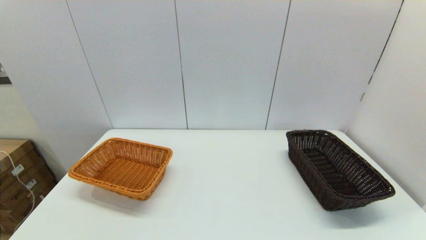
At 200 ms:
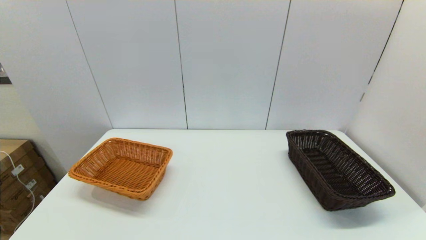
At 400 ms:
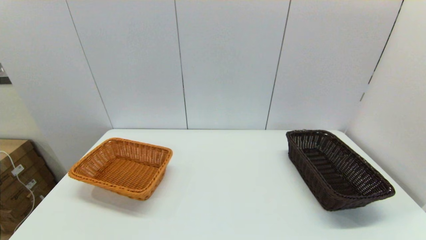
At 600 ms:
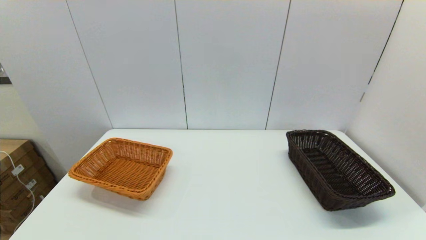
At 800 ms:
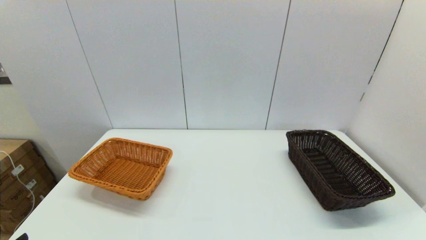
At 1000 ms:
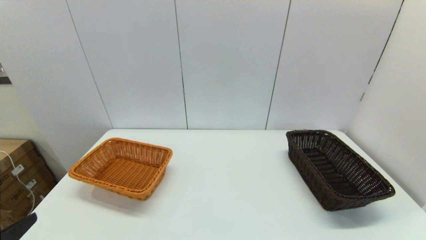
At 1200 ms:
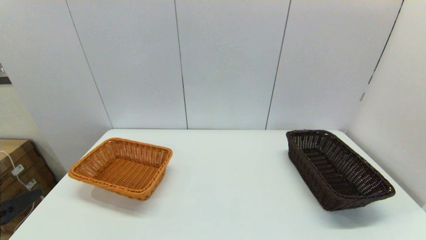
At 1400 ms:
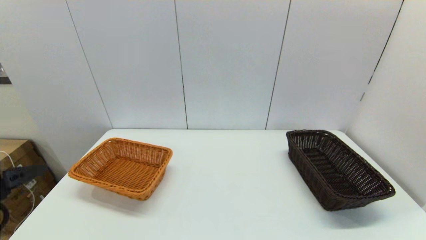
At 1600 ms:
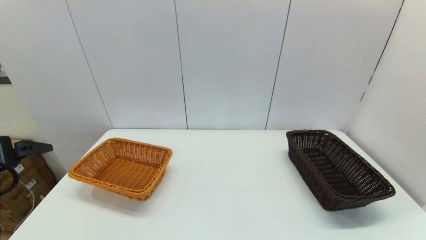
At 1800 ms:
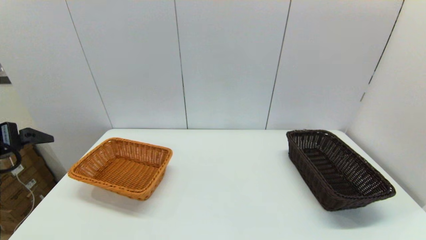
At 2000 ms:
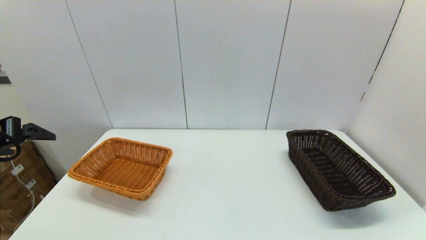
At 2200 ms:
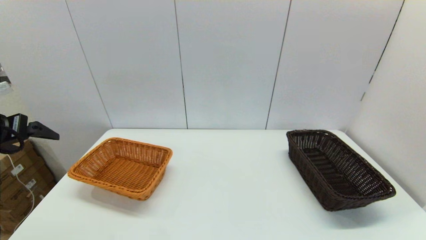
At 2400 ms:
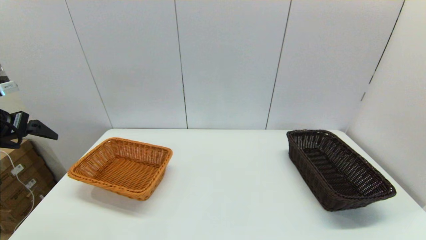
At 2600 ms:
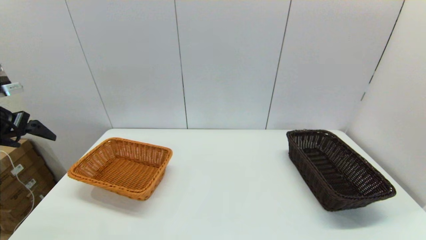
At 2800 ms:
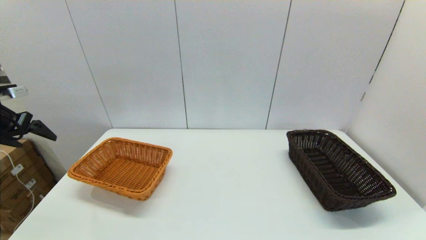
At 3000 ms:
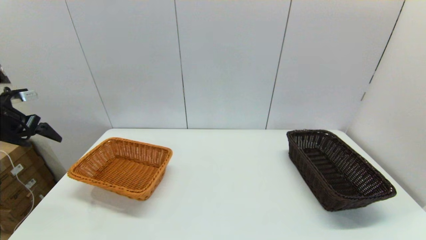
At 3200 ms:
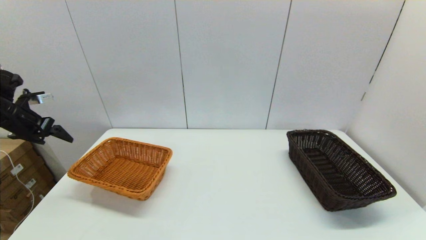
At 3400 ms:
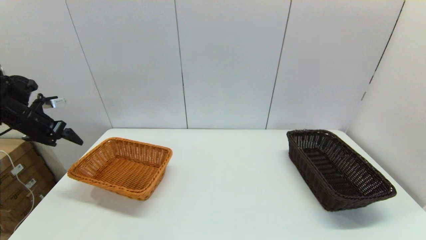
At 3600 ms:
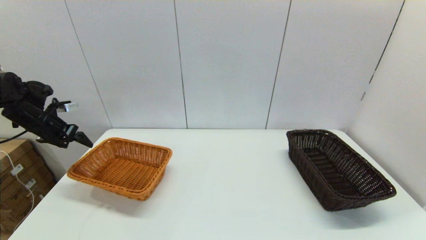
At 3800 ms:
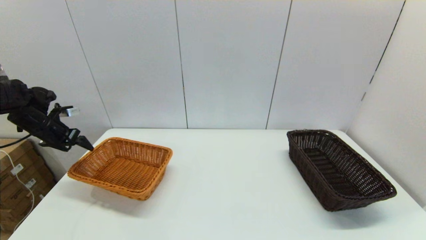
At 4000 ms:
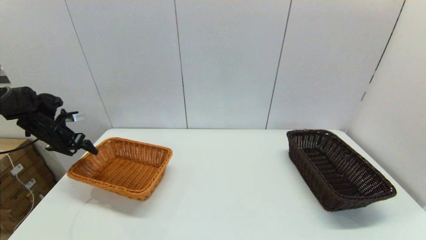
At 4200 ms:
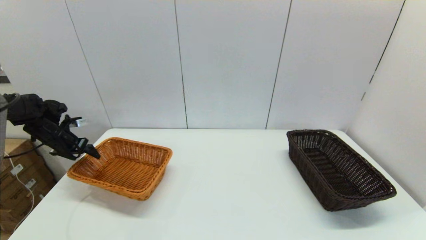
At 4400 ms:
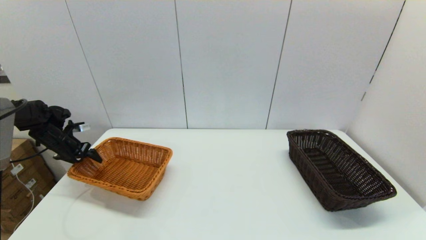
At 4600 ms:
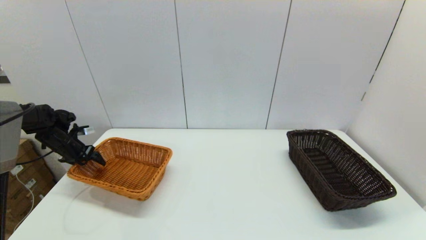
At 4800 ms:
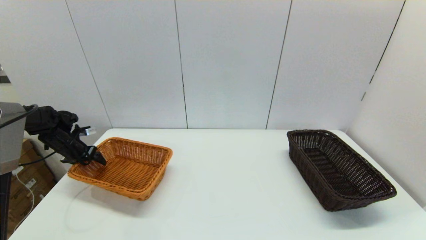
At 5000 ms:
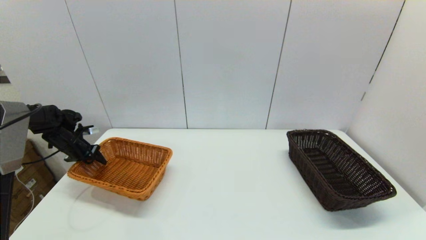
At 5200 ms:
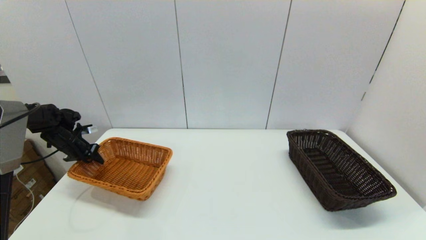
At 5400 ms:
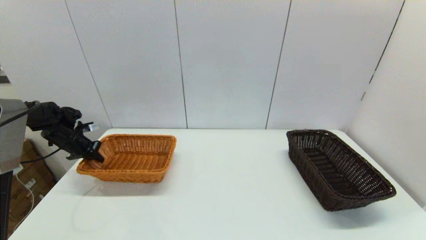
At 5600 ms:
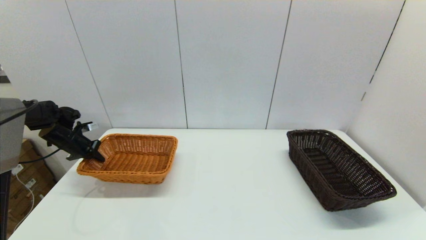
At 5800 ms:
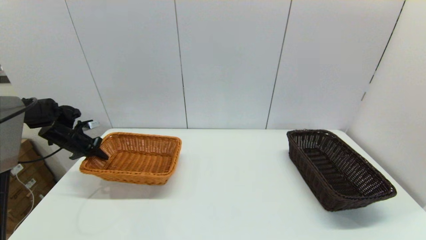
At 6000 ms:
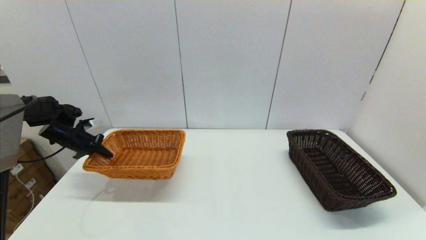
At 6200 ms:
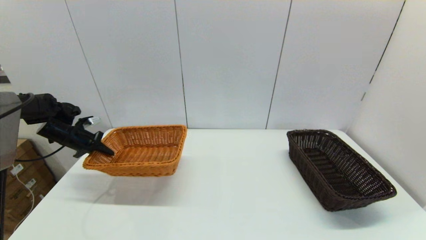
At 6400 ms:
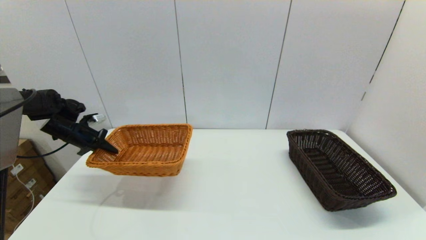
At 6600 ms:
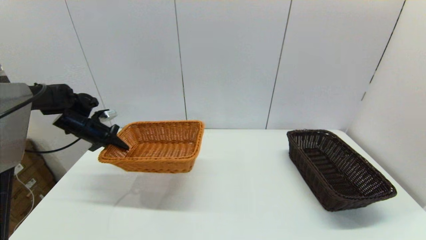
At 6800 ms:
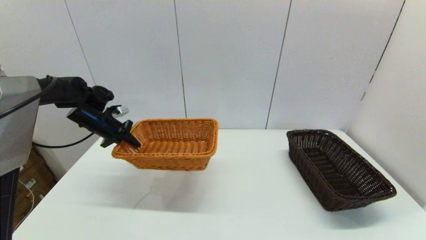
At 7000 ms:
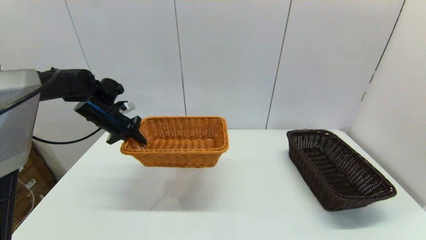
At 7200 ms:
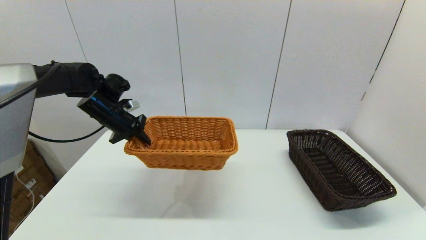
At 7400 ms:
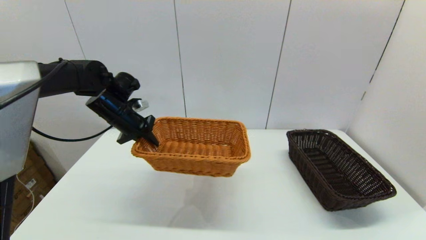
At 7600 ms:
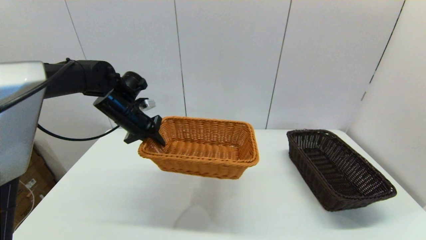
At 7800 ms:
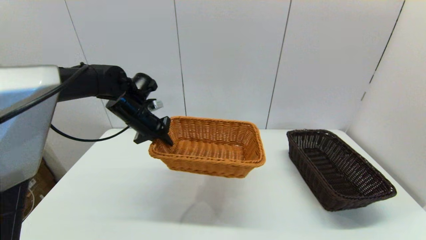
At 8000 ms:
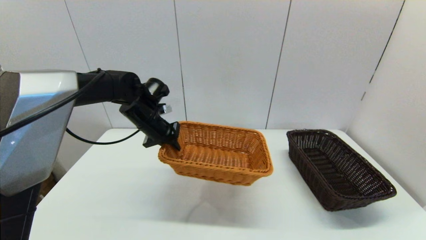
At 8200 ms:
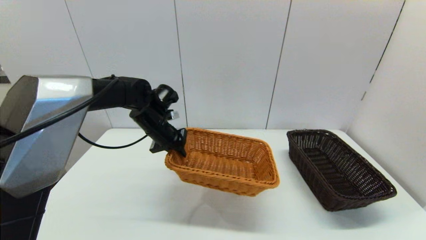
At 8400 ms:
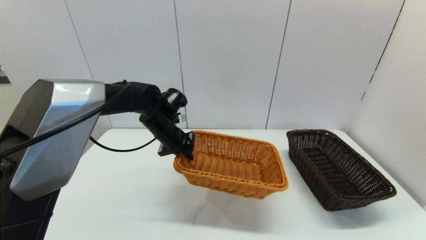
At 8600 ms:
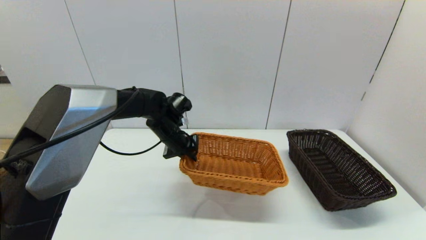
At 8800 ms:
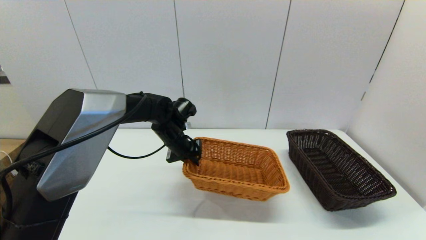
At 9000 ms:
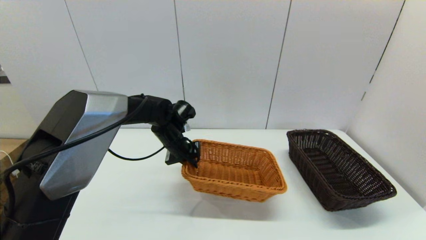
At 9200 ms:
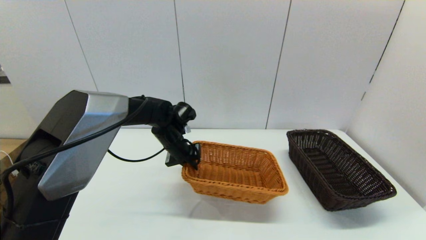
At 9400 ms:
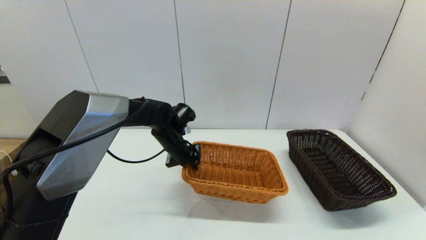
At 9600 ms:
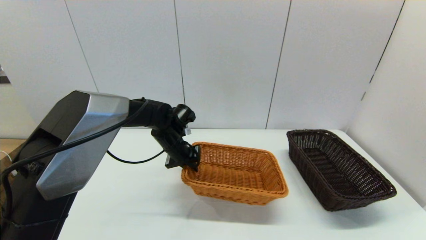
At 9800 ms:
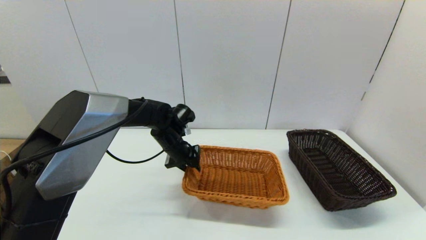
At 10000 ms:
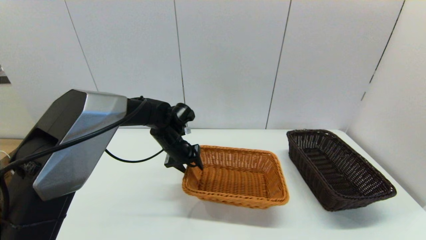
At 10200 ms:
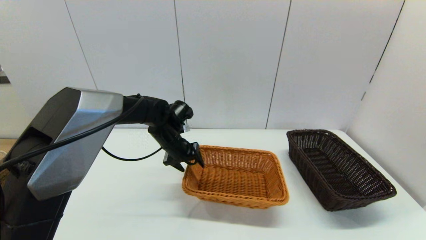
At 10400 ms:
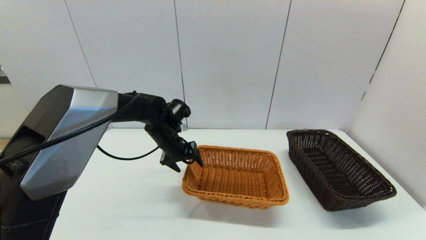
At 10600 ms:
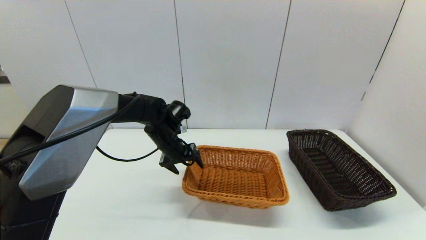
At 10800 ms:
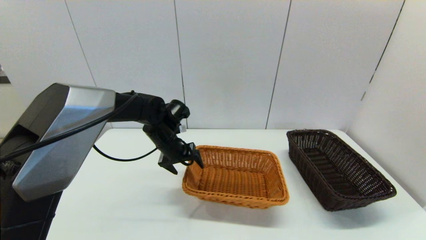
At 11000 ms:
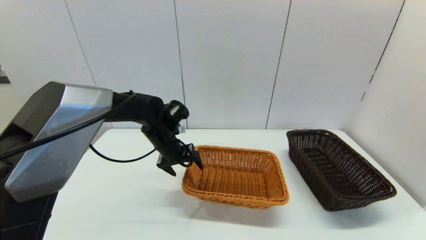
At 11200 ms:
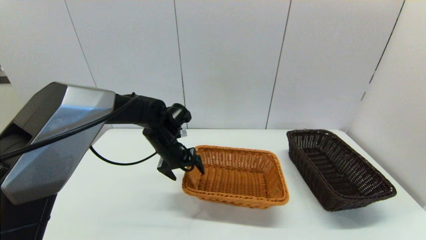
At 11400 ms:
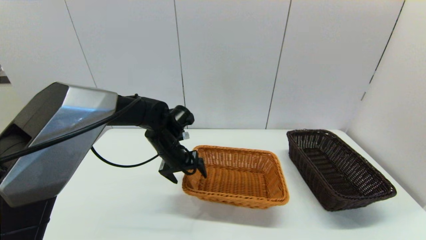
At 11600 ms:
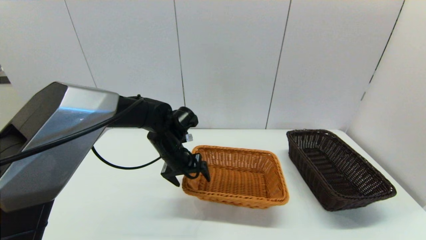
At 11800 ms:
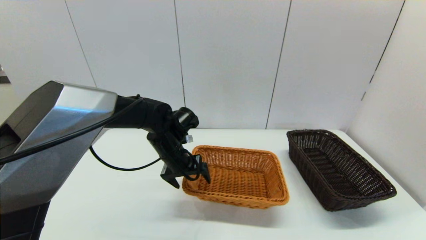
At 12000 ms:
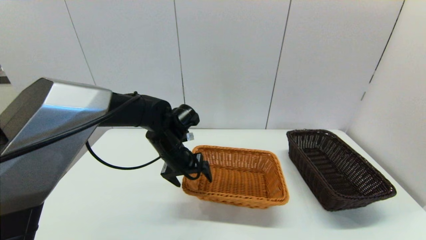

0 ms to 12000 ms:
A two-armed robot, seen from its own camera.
Task of the whole recording: stack a basket on top of another basket.
Step, 0 ms to 5400 ms: Grasp the light basket with the left gripper.
Step, 5600 ms to 11800 ms: Place the light basket on the middle of the table with the left gripper.
0 ms to 1600 ms: The left gripper heads forward and upward, covering roughly 25 cm.
1600 ms to 3000 ms: The left gripper travels forward and to the left by roughly 20 cm.
3000 ms to 4400 ms: The left gripper goes approximately 20 cm downward and forward.
4400 ms to 6000 ms: The left gripper closes.
6000 ms to 7600 ms: The left gripper is displaced to the right and upward by about 25 cm.
7600 ms to 9000 ms: The left gripper is displaced to the right and downward by approximately 15 cm.
9000 ms to 10400 ms: The left gripper opens.
10400 ms to 12000 ms: The left gripper ends up some 5 cm from where it was.

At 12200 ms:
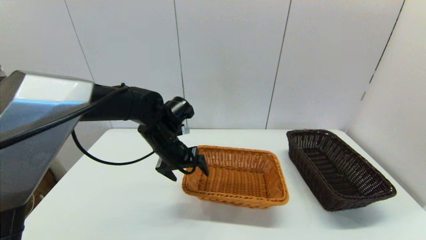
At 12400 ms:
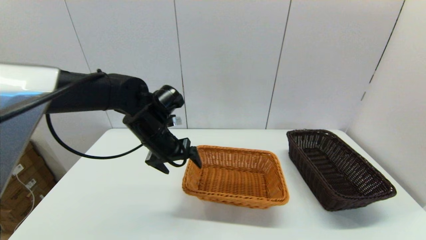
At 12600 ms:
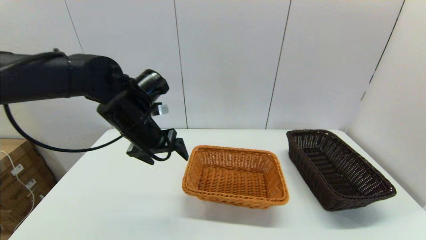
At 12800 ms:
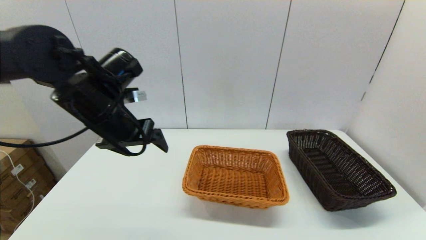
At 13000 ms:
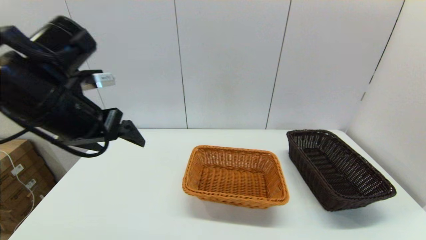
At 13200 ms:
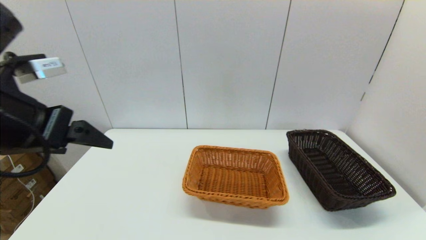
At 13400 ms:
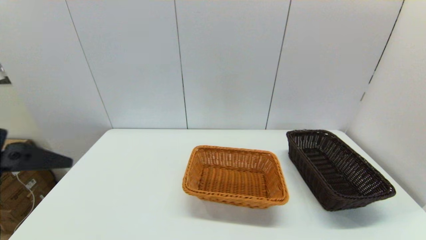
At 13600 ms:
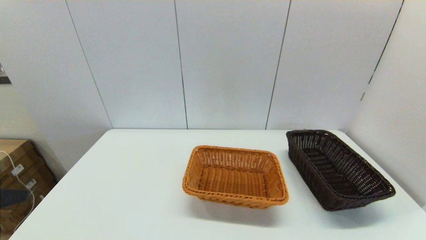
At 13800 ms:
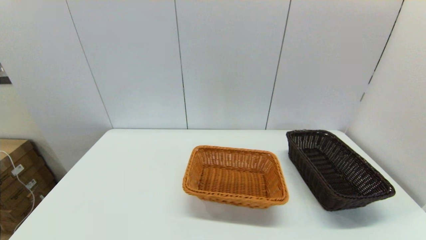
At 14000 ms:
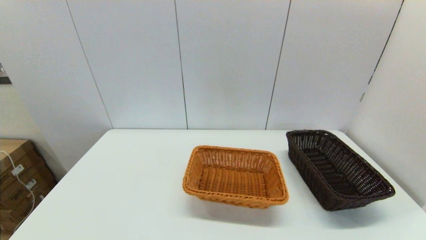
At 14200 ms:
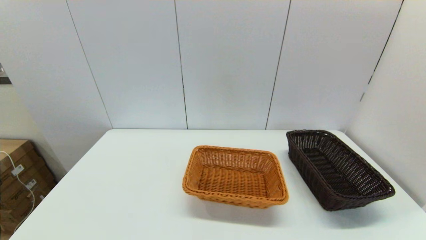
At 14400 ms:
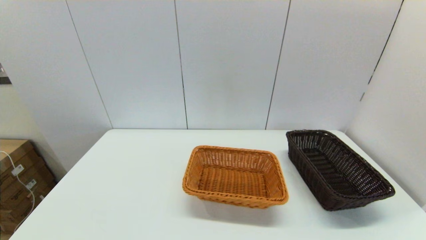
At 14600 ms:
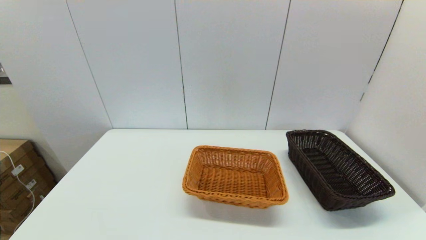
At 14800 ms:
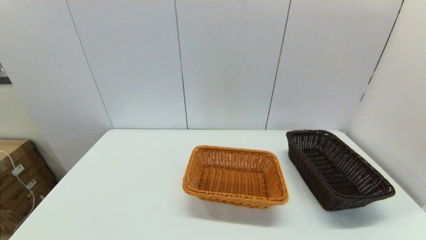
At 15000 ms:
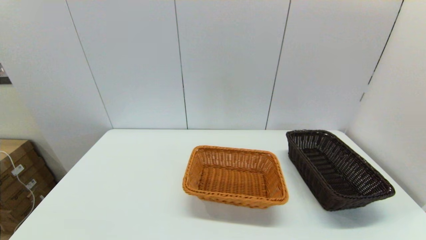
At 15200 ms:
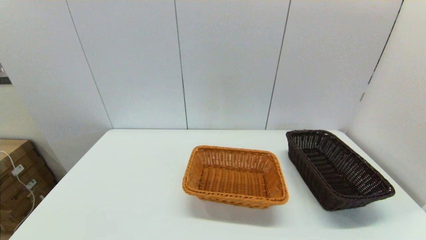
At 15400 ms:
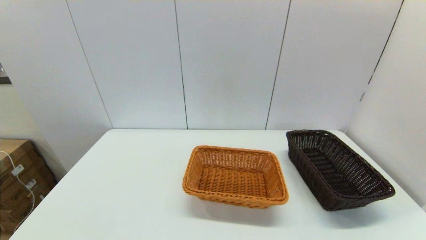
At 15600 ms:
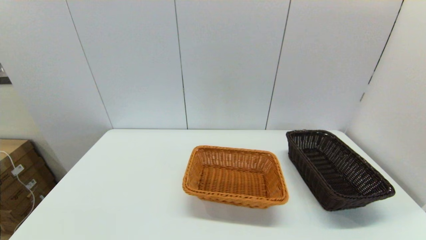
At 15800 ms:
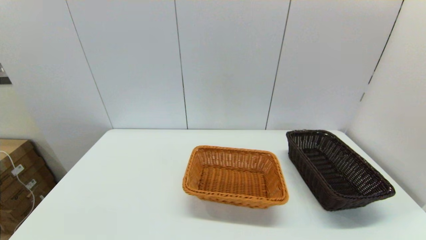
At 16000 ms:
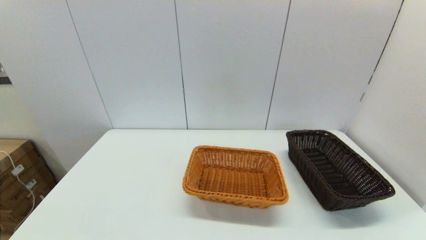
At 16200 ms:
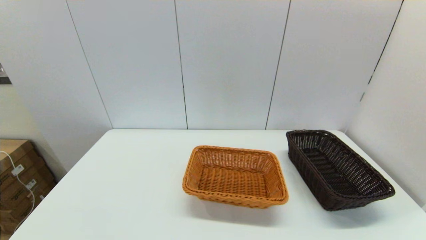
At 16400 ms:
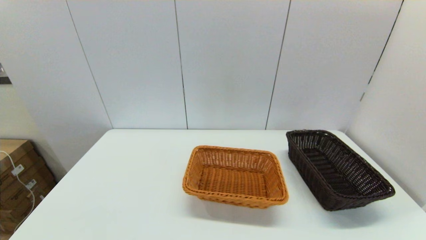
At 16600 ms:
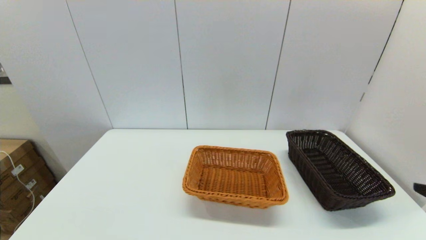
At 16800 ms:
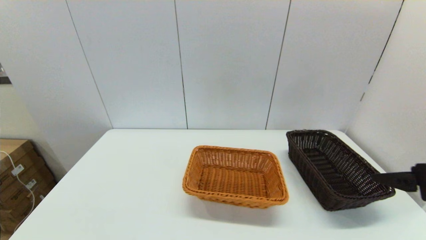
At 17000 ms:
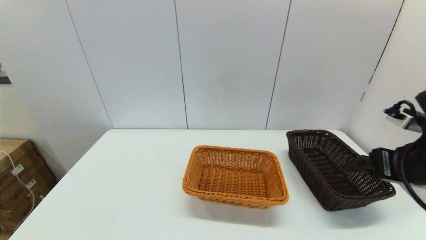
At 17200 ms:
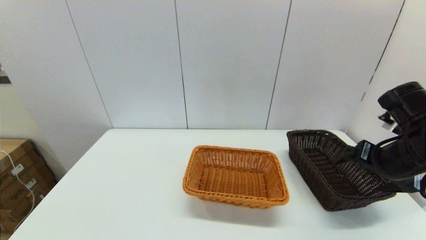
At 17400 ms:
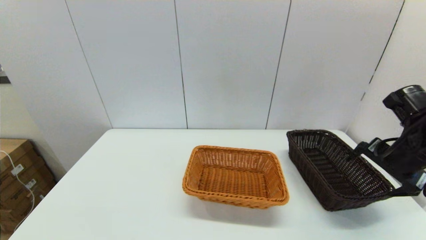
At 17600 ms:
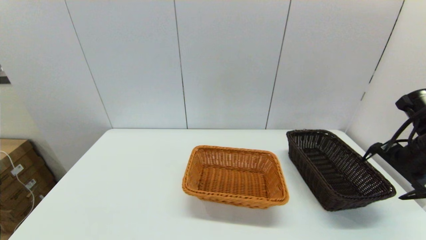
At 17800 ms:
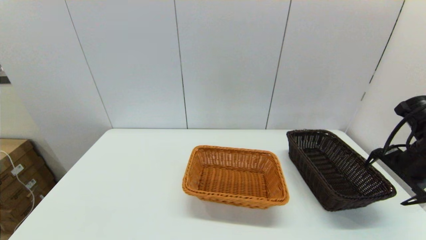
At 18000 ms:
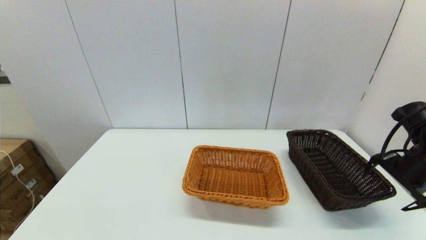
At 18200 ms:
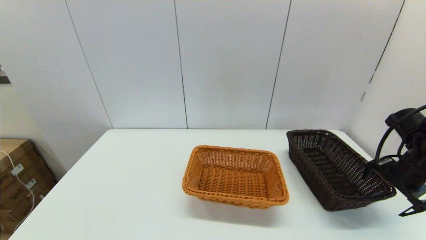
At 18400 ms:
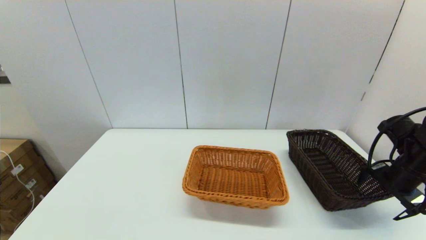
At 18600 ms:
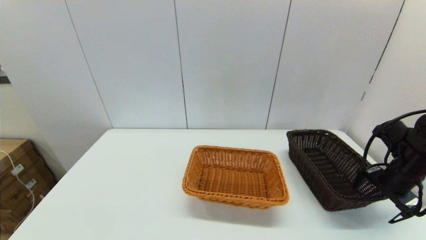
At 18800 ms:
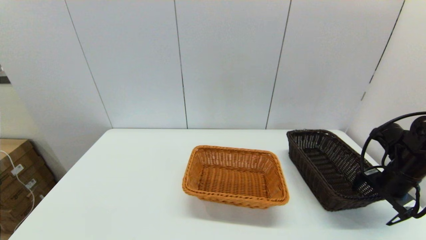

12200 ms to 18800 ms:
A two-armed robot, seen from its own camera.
Task of the whole recording: stack a basket on top of another basket.
12200 ms to 13800 ms: The left gripper moves backward, to the left and upward, approximately 40 cm.
15400 ms to 17200 ms: The right gripper shifts some 30 cm forward and upward.
17200 ms to 18800 ms: The right gripper travels downward and to the right by some 15 cm.
